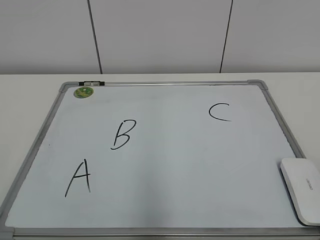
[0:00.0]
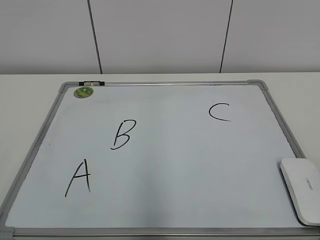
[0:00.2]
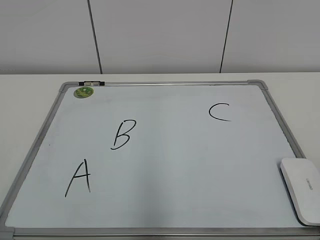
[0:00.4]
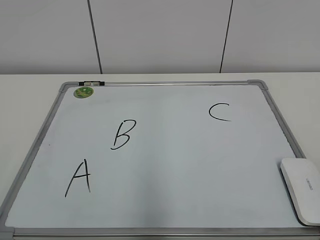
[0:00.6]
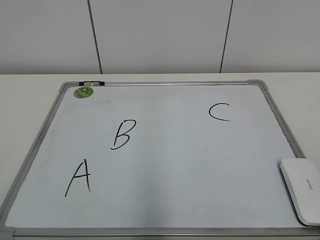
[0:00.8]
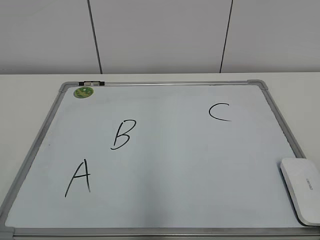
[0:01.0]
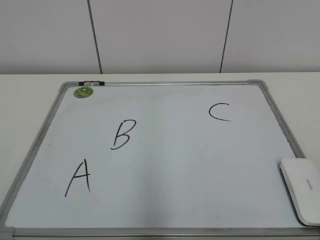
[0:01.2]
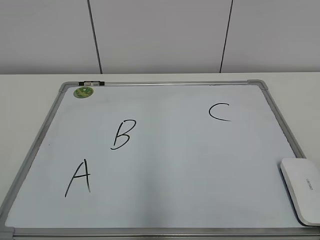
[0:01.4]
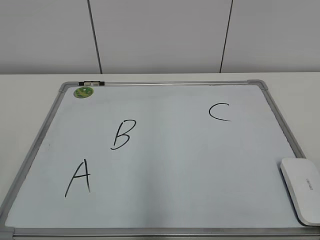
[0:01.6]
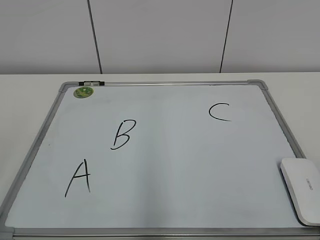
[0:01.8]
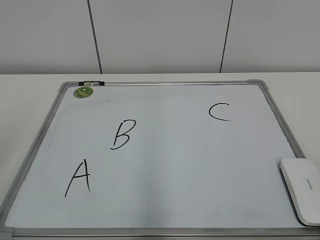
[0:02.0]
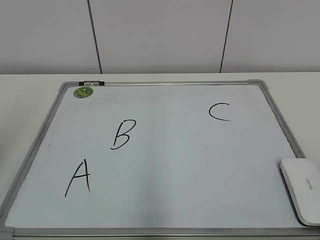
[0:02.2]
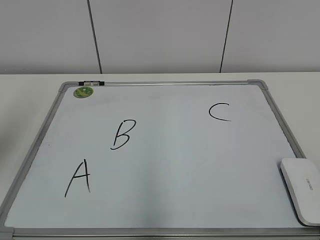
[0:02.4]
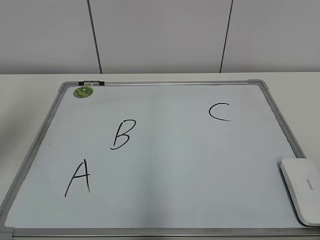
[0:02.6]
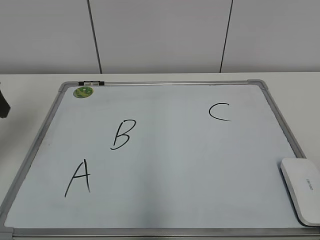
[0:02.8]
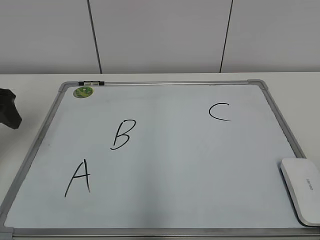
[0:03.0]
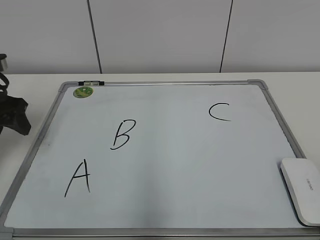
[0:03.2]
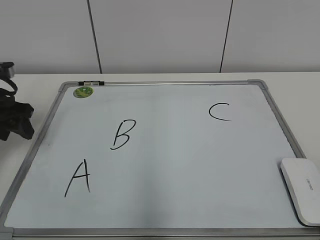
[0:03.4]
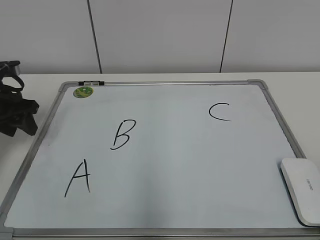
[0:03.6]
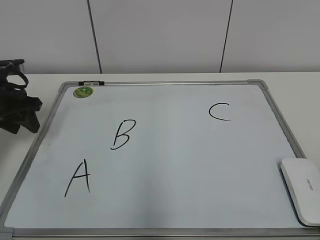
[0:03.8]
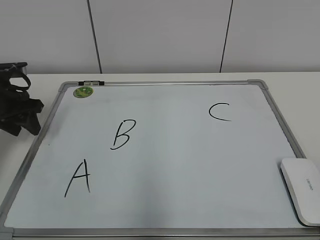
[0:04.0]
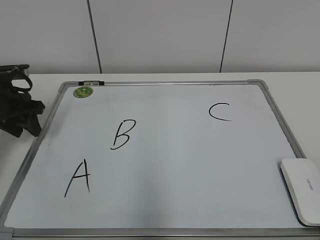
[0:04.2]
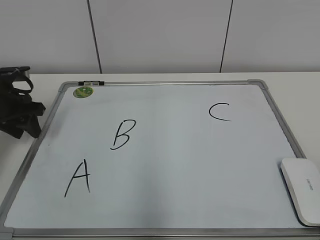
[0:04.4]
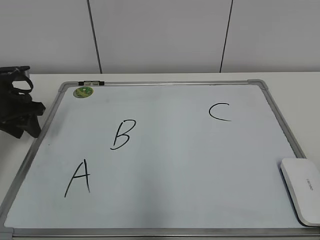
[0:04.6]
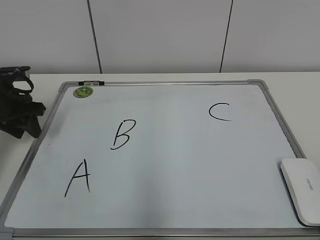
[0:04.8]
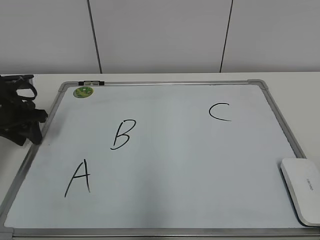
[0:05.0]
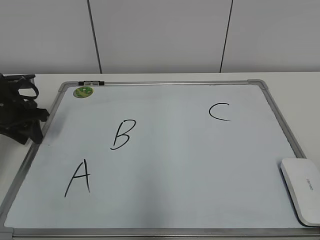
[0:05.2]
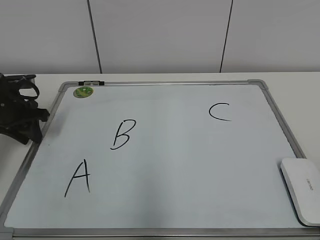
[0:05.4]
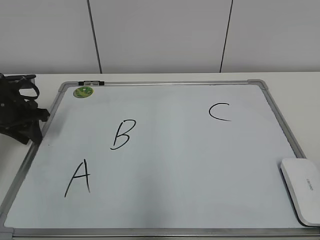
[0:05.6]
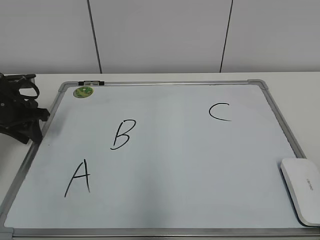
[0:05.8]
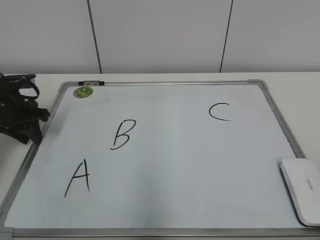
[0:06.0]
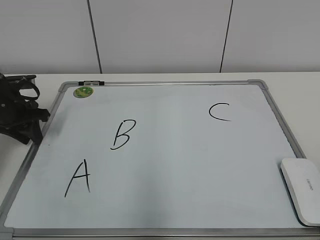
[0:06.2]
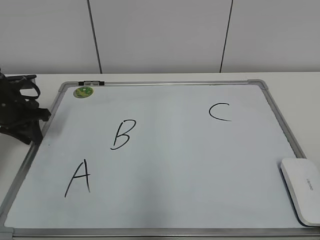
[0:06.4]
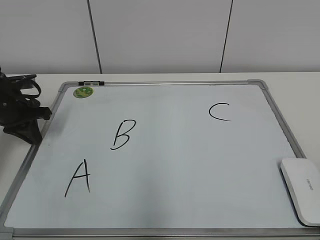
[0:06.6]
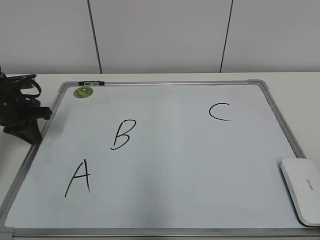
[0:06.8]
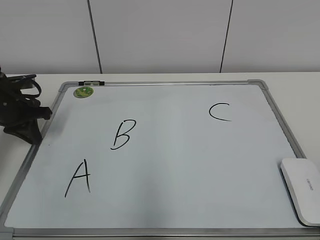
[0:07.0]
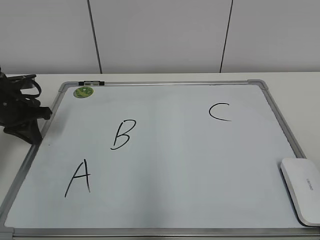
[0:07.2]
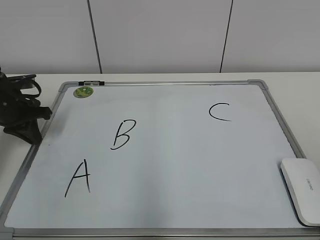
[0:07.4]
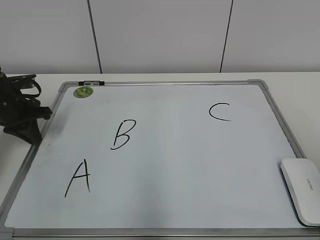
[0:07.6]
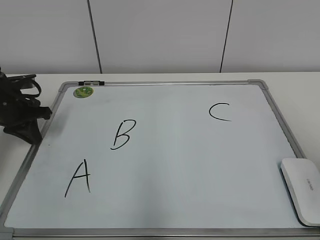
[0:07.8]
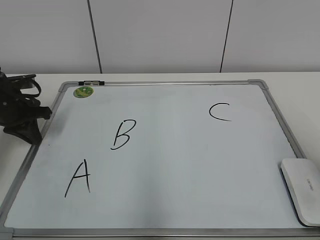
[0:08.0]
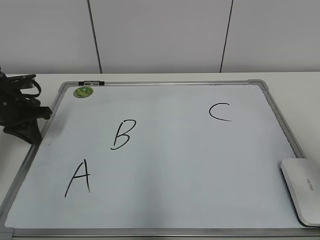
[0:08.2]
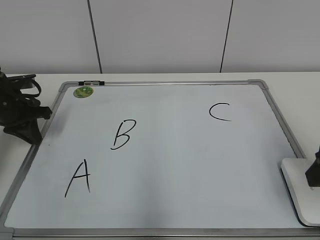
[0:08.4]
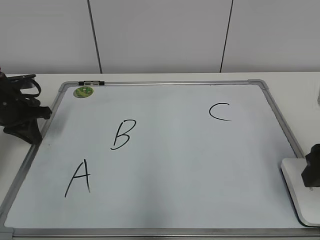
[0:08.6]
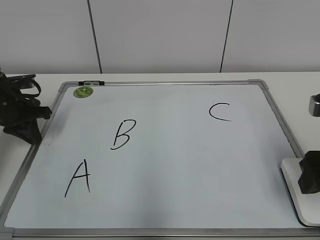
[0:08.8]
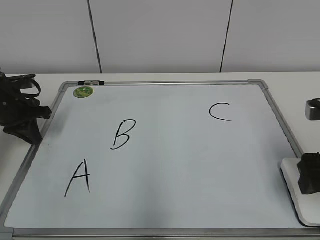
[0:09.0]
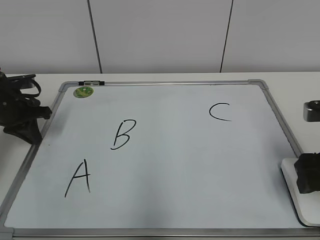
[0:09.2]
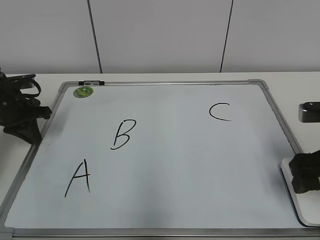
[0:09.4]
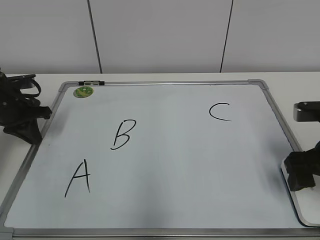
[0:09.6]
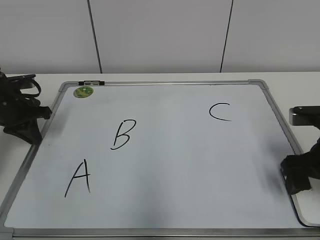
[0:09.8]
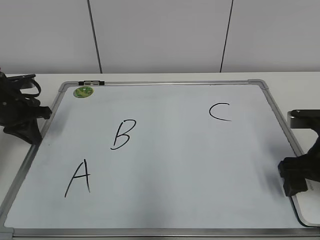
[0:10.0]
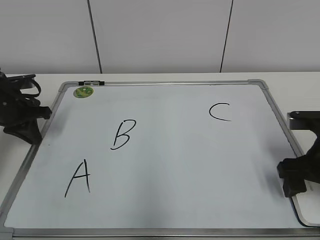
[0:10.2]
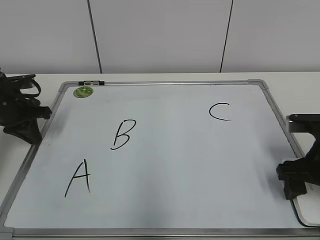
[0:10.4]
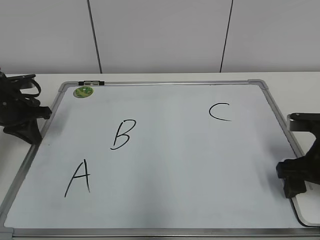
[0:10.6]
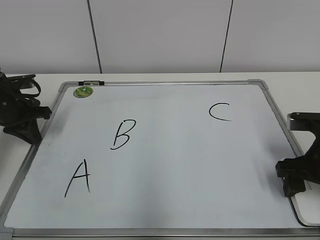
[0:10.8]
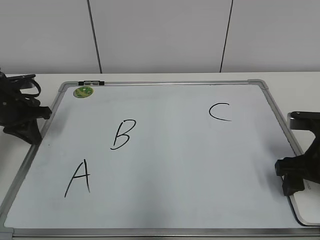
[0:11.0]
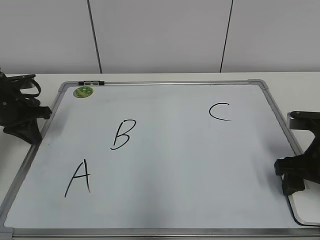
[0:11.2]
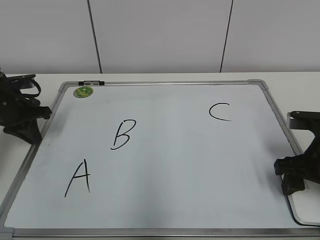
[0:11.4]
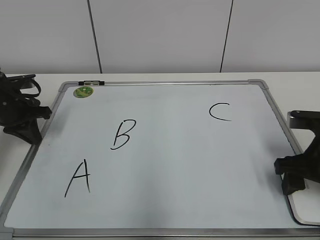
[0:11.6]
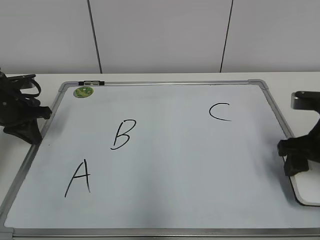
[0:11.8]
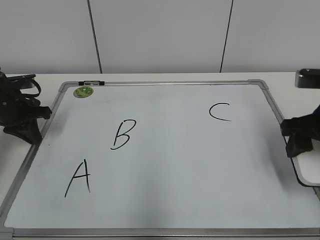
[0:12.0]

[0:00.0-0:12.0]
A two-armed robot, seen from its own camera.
Task of the whole recording: pick up the eraser on the blackboard and erase the letter "B".
Step, 0:00.0 to 0:07.0: Hold the drawing board steady with your left hand.
Step, 0:07.2 to 0:10.6: Grab the eraser with your right hand.
0:01.6 to 0:03.0: The left gripper shifts approximately 30 cm forward.
0:03.0 to 0:04.4: The left gripper heads downward and forward, covering approximately 10 cm.
0:04.4 to 0:06.0: The grippers make only small movements.
0:06.0 to 0:07.6: The left gripper closes its fingers.
0:07.6 to 0:09.0: The right gripper goes some 20 cm forward and downward, and opens its fingers.
0:09.0 to 0:10.4: The right gripper heads downward, covering about 5 cm.
0:10.4 to 0:12.0: The right gripper moves upward, about 5 cm, and closes.

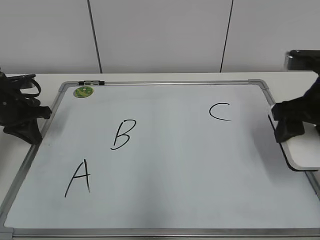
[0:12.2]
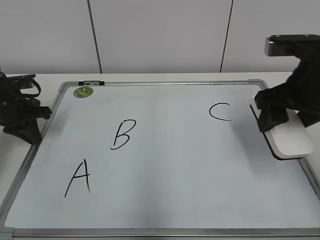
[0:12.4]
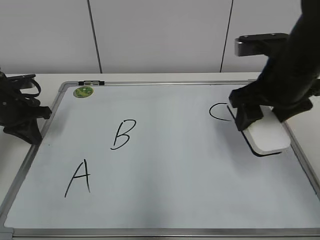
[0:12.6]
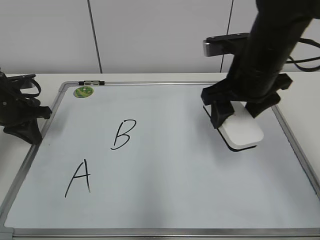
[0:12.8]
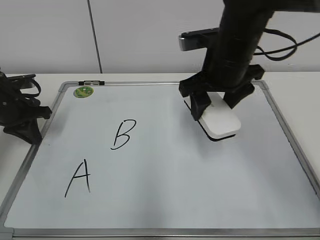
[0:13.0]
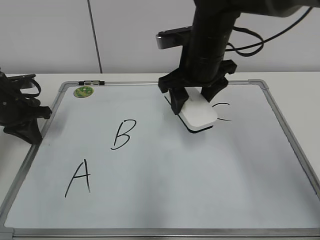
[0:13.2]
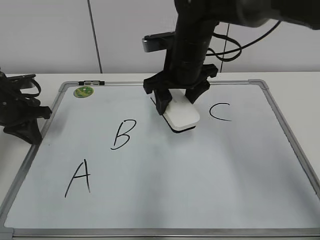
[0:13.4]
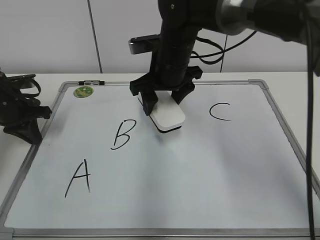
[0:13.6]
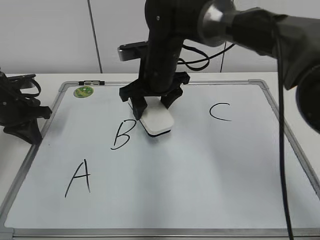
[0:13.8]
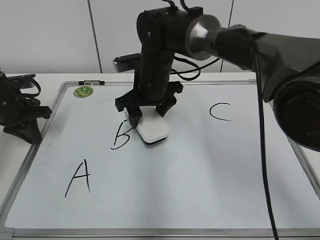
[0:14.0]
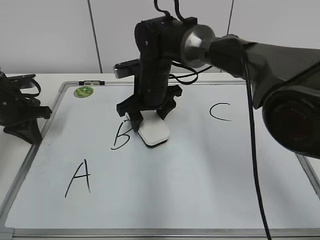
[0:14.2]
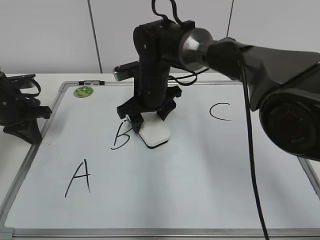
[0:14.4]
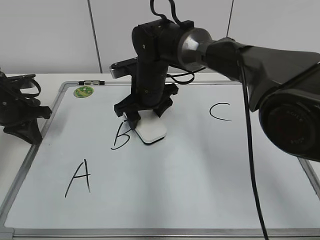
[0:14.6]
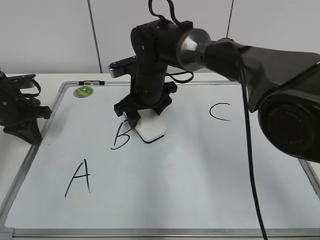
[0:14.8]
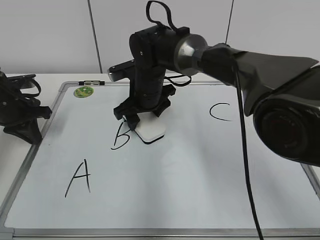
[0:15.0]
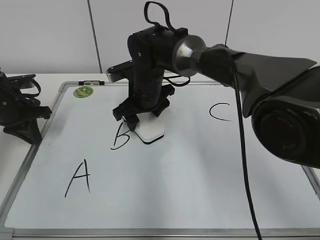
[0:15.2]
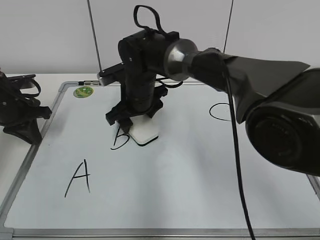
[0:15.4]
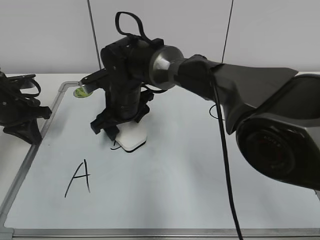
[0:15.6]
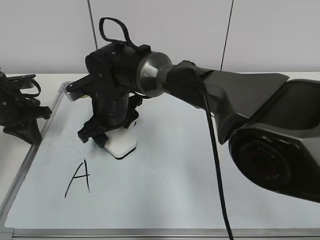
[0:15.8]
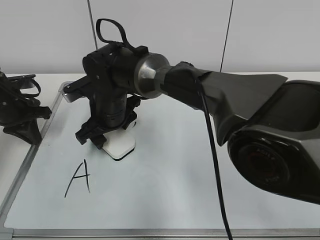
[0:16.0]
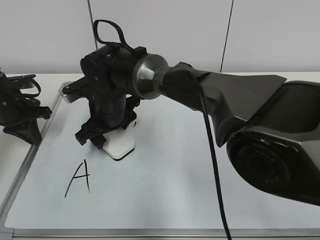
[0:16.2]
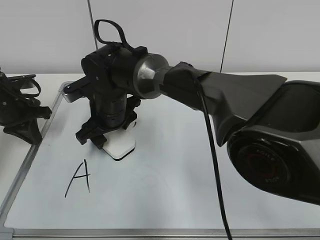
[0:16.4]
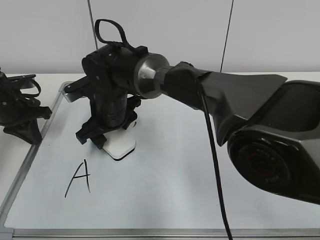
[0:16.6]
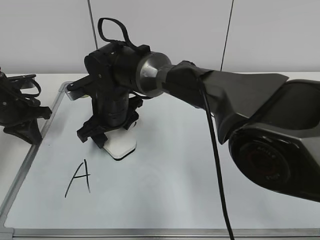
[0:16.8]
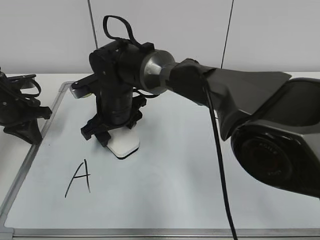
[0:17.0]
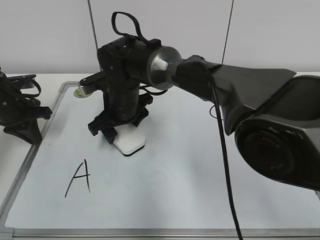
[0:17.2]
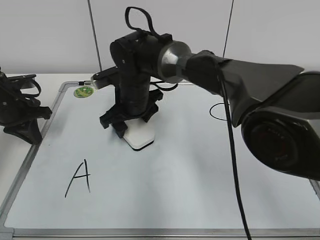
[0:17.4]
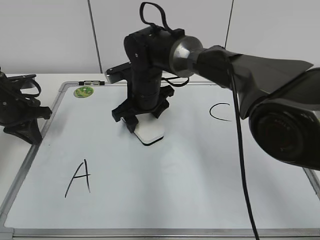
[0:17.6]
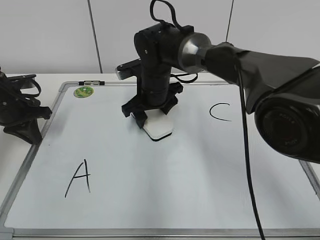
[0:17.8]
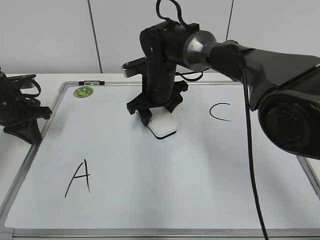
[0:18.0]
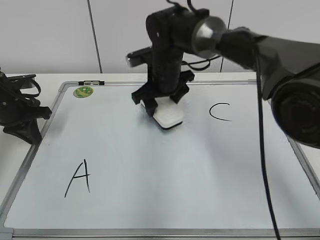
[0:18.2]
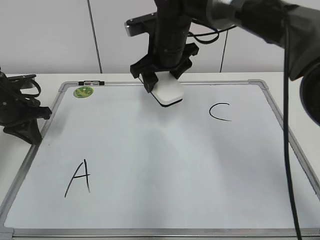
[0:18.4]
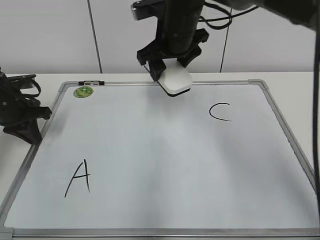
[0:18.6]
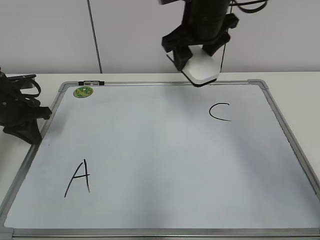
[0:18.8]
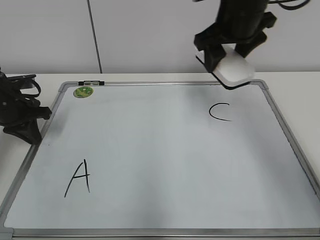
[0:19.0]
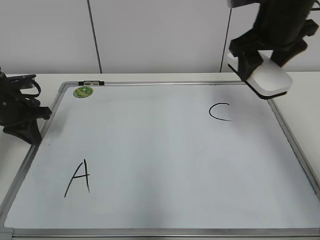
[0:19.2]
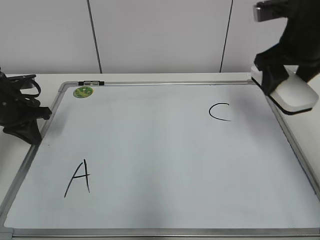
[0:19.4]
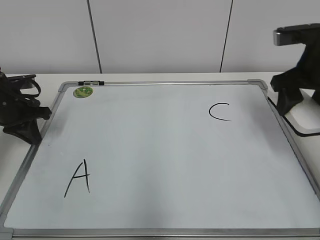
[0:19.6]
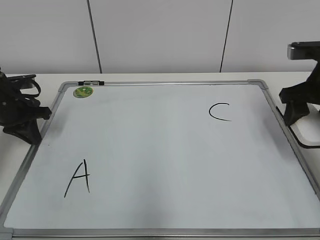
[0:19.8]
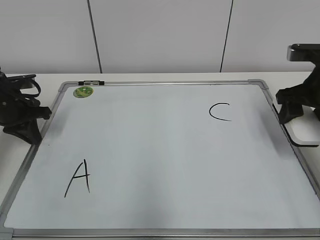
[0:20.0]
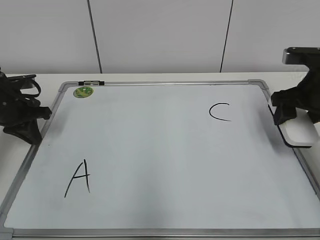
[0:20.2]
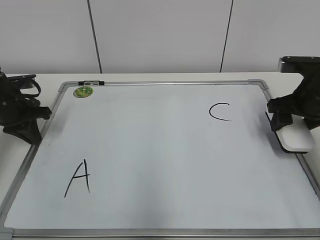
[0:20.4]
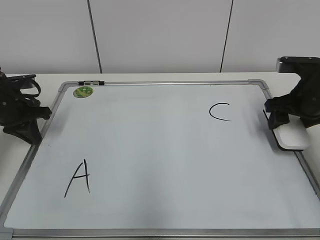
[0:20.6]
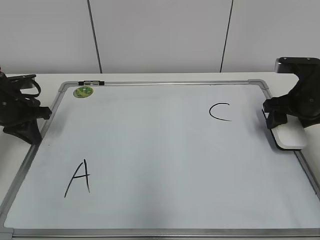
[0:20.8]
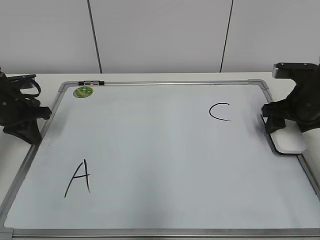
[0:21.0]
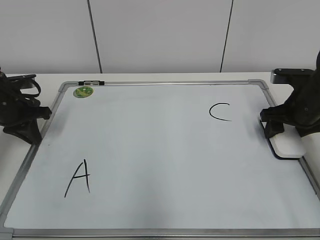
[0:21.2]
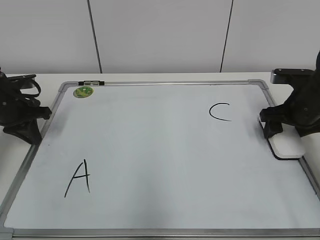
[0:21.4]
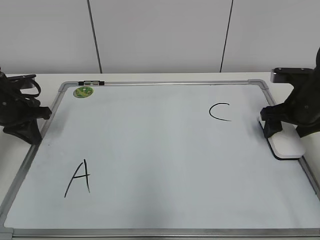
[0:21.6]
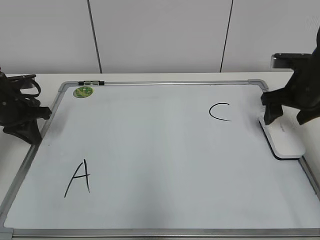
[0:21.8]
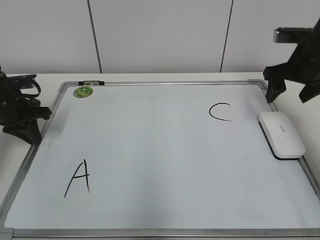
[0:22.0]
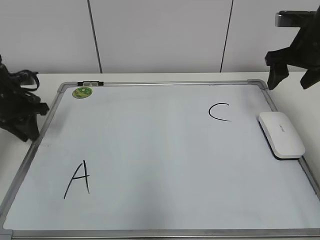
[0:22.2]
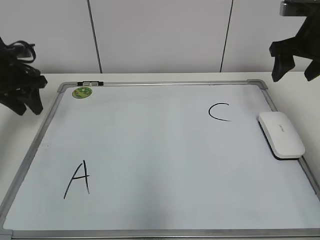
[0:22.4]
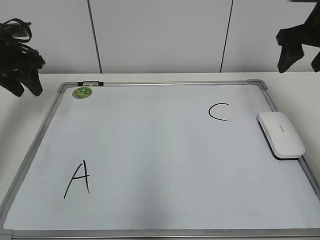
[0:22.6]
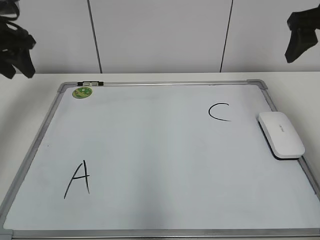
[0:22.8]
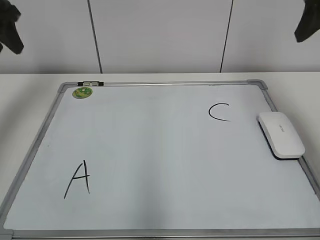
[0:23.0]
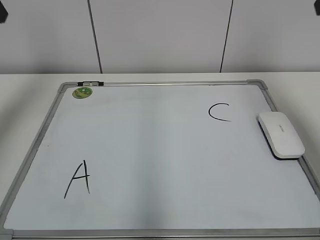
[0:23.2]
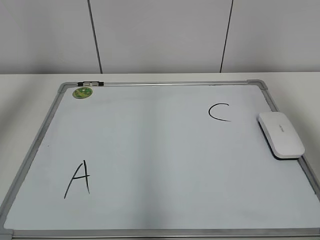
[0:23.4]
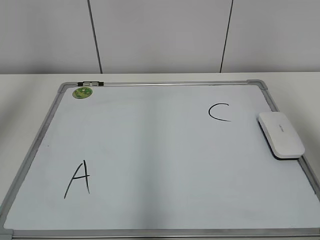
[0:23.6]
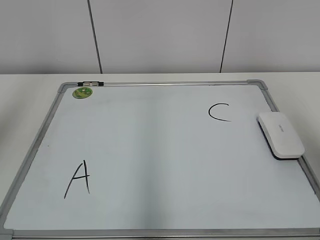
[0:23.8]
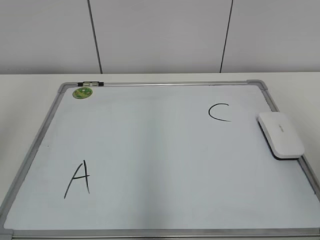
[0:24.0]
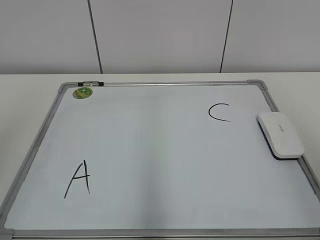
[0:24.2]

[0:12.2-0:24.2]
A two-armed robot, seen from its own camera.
Task of the whole recording: pick up the eraser on the blackboard and erase the letter "B".
Step, 0:12.2 to 0:17.6: Erase the letter B with your right hand.
Step, 0:17.8 to 0:21.4: Put down the eraser with your right hand.
0:12.2 to 0:13.8: The right gripper shifts some 25 cm to the left and forward.
0:13.8 to 0:15.2: The right gripper goes some 5 cm downward.
0:15.2 to 0:16.6: The right gripper shifts about 5 cm to the left.
0:16.6 to 0:18.2: The right gripper moves to the right and forward, roughly 10 cm.
0:18.2 to 0:19.8: The right gripper shifts approximately 25 cm to the right.
0:19.8 to 0:21.2: The right gripper moves downward, about 10 cm.
0:21.2 to 0:22.6: The right gripper heads upward, covering about 15 cm, and opens up. The left gripper heads upward, covering roughly 10 cm, and opens up.
0:22.6 to 0:24.2: The right gripper shifts approximately 30 cm backward. The left gripper heads backward and upward, covering approximately 35 cm.
